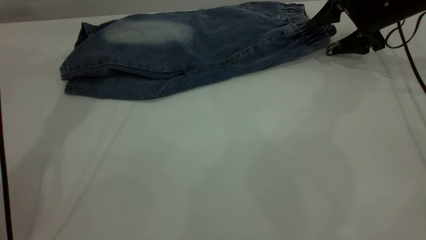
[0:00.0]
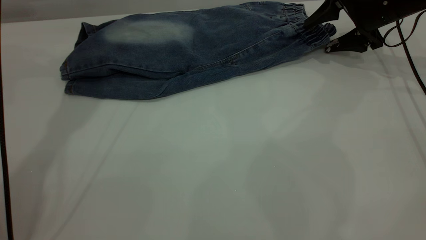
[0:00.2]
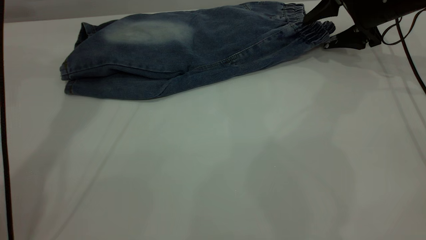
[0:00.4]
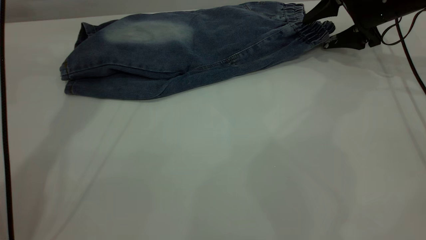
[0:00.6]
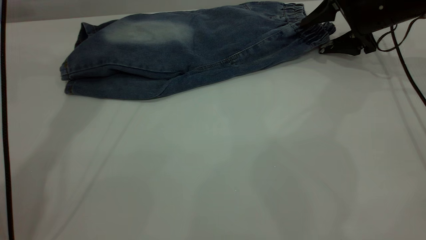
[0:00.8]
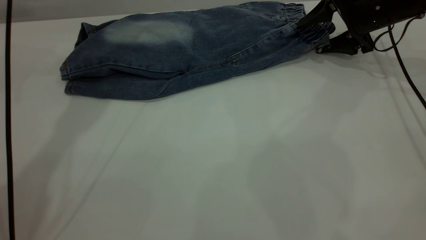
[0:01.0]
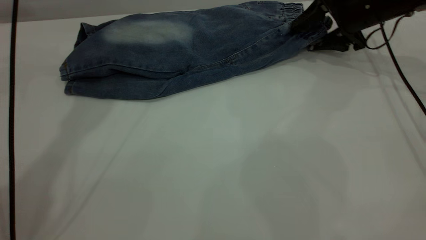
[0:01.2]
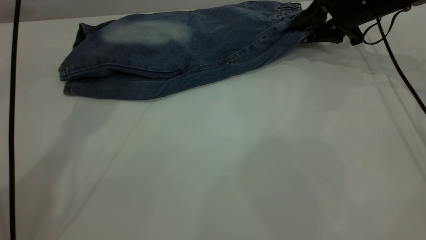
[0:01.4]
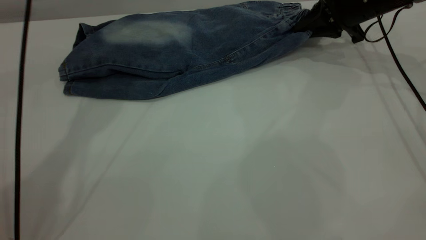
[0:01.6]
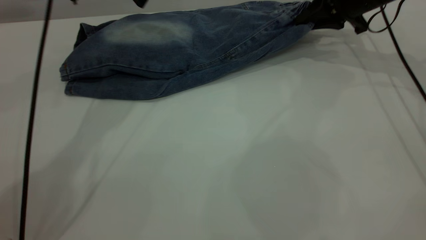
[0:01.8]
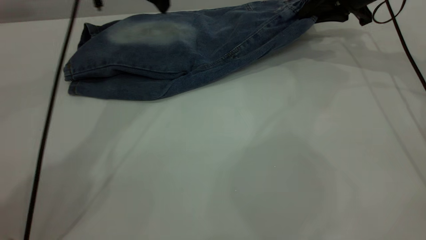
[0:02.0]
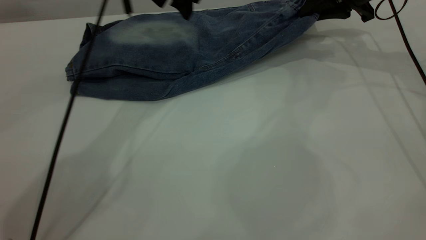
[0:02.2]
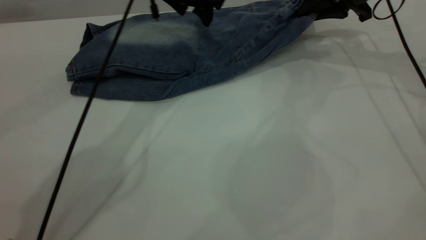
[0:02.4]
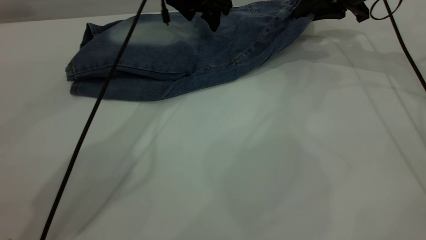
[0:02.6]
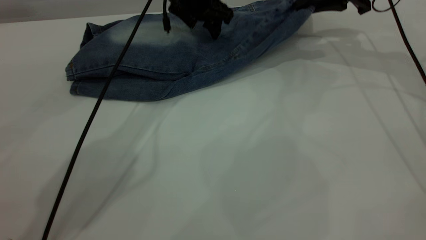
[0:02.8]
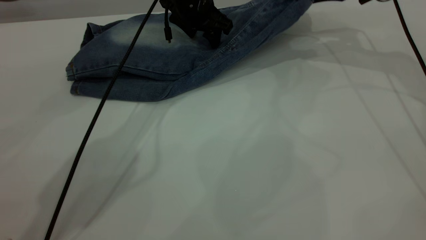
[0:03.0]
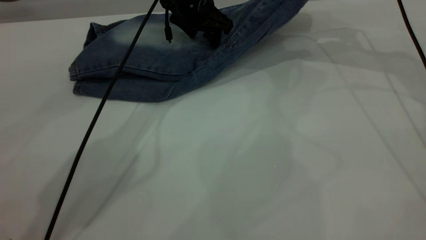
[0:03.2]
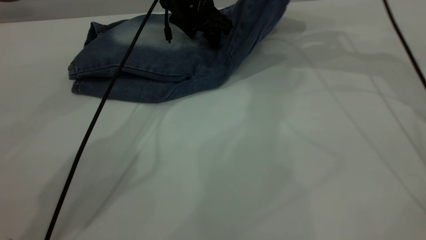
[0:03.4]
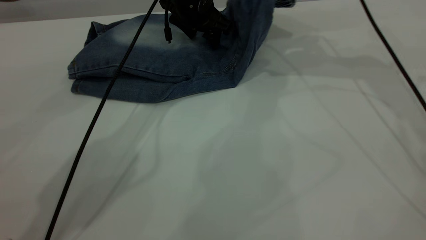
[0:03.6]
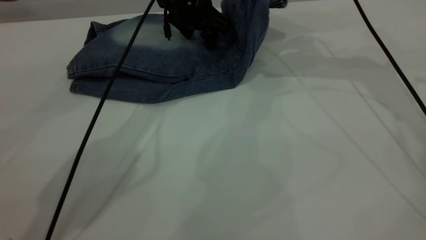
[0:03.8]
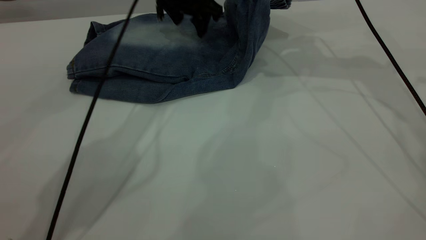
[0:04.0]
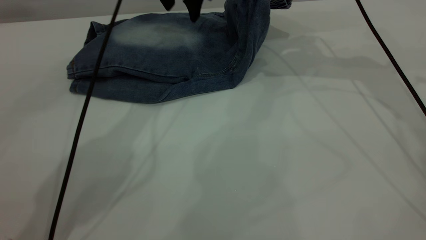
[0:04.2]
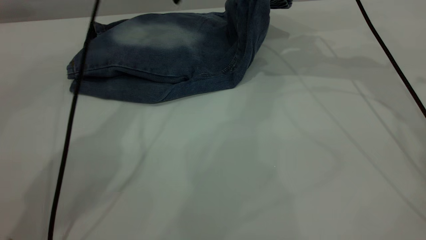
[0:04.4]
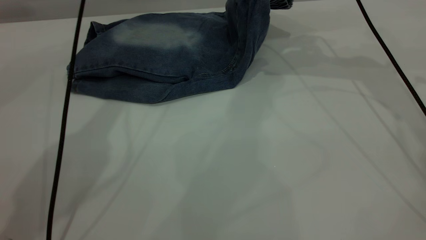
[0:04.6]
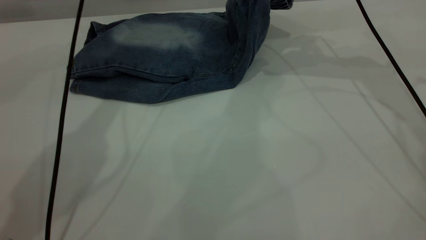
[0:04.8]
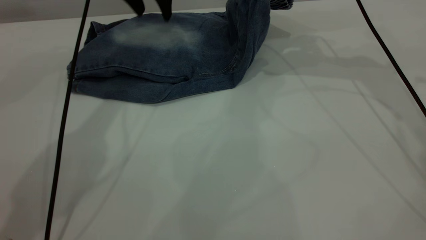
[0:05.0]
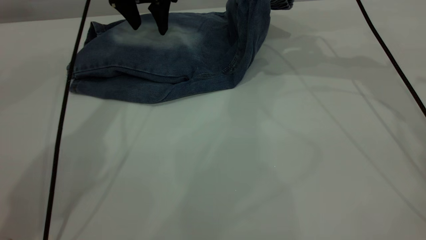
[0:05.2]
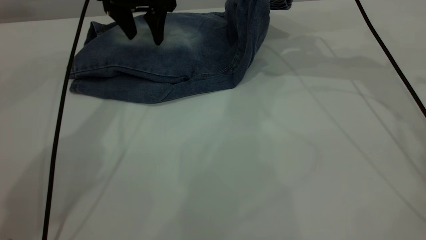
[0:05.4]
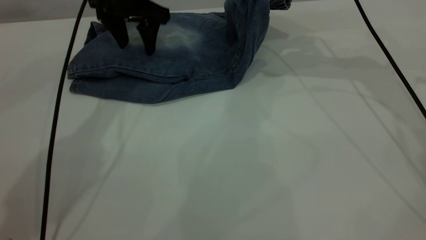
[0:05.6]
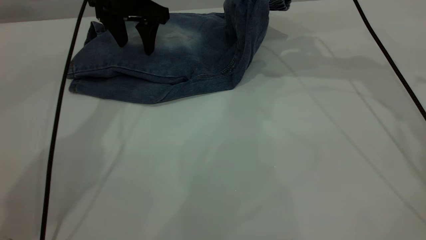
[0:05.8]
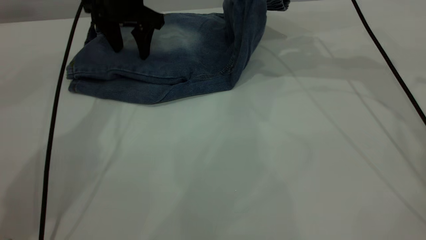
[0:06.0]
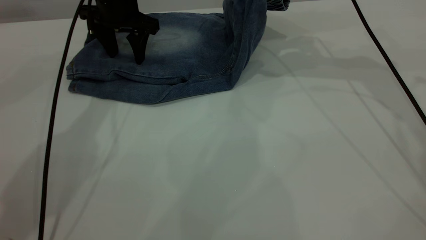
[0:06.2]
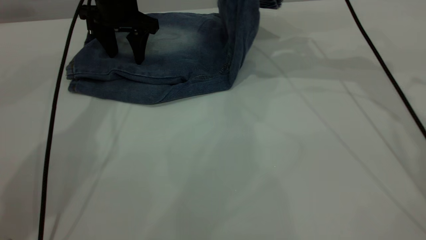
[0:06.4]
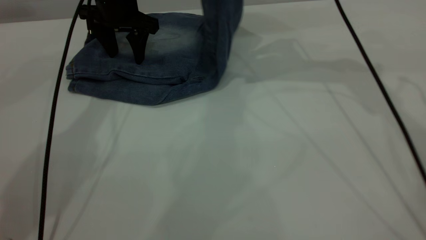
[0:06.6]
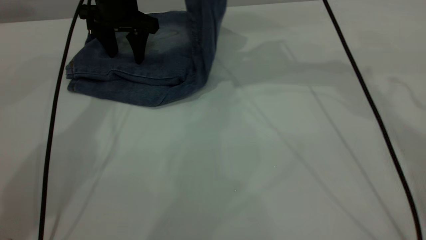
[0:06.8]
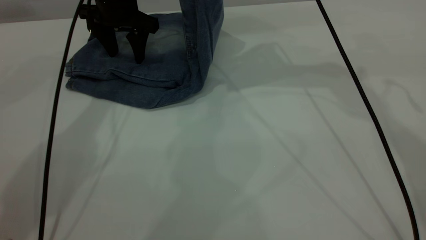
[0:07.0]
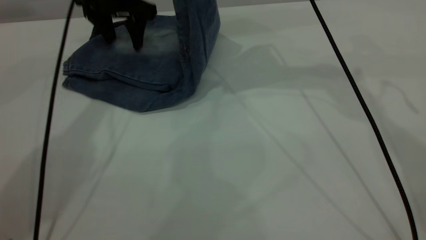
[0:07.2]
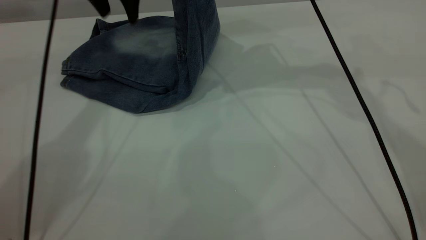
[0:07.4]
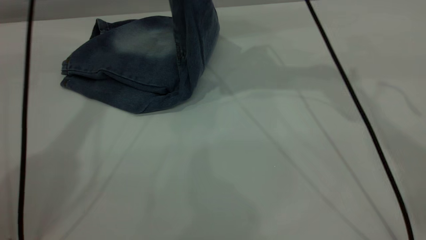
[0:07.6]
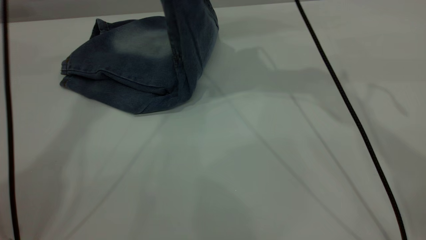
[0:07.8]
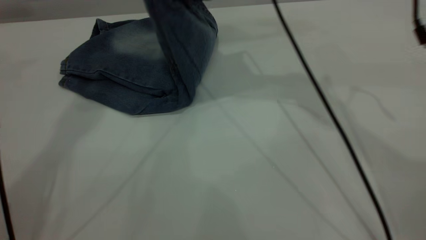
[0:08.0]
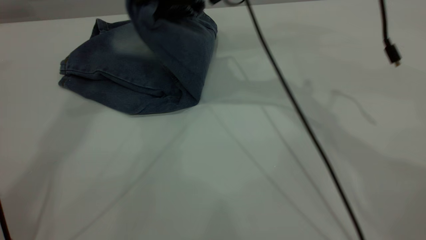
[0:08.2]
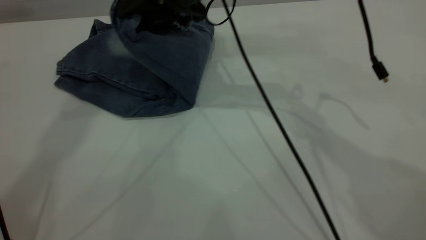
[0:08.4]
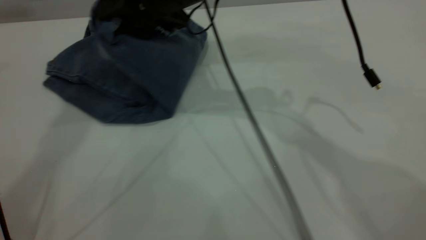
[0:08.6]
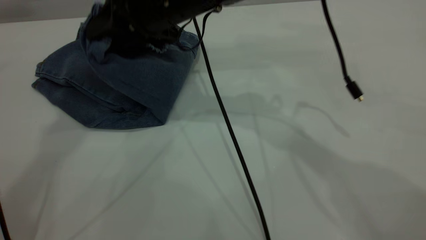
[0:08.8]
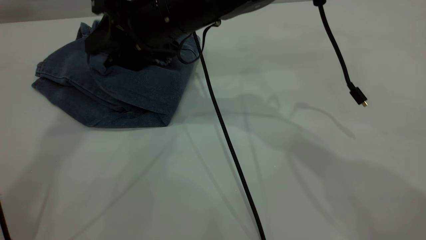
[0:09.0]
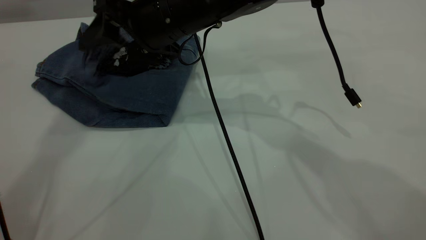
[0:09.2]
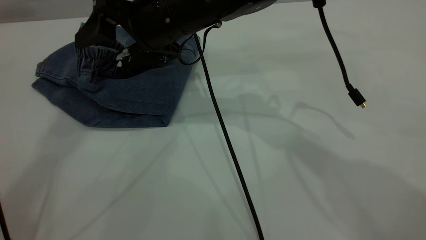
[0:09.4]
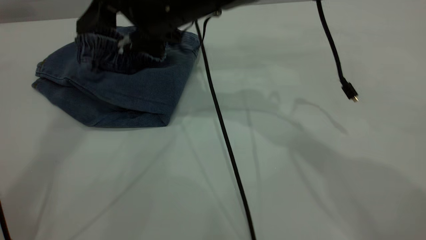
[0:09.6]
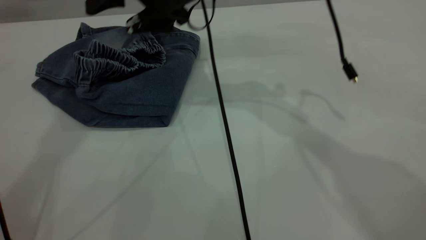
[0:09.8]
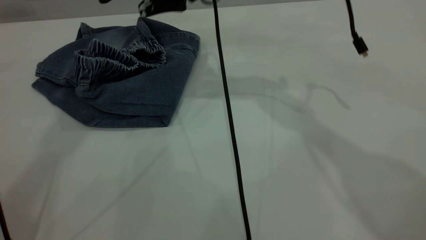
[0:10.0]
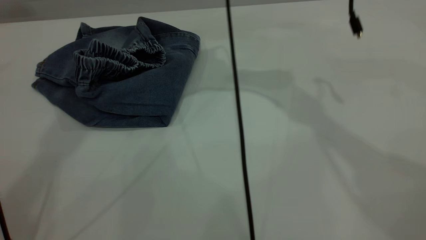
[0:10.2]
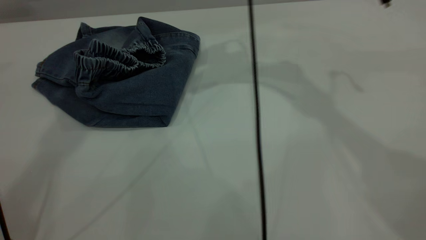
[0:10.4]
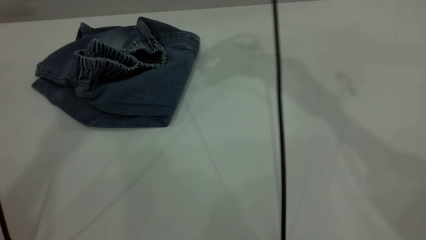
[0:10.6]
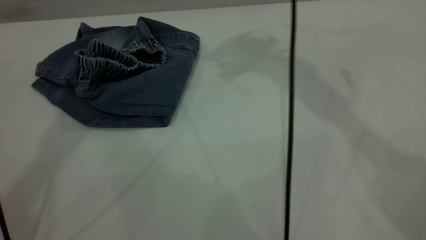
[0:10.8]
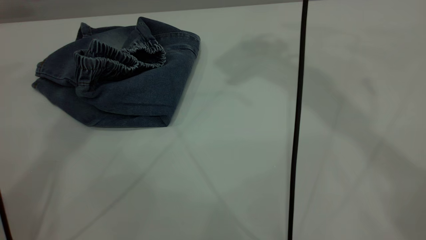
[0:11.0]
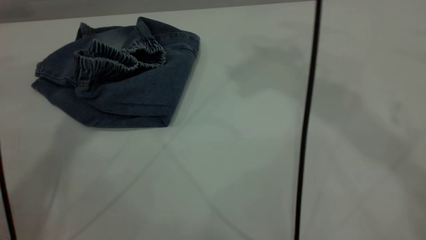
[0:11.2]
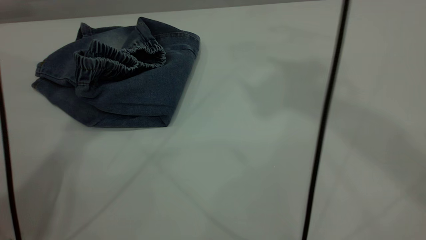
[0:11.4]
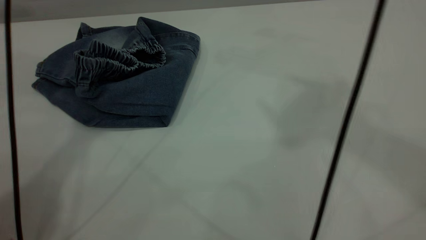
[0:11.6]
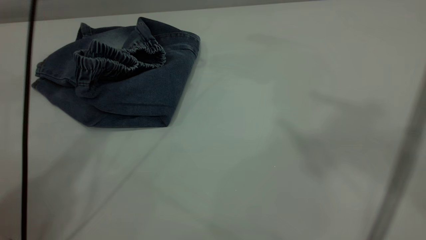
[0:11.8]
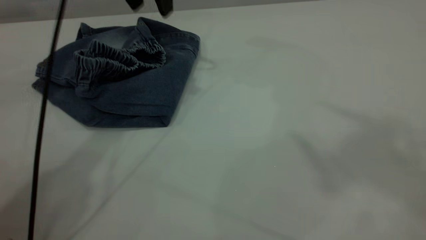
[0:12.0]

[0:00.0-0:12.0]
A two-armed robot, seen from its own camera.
Step, 0.0 to 10.0 s: Fold your pants from right to left.
0.0 to 1.6 s: The left gripper heads to the right, covering approximately 5 cm; the right gripper closes.
1.6 to 3.0 s: The left gripper goes some 15 cm to the right and downward. Meanwhile the right gripper is displaced upward by approximately 5 cm.
3.0 to 4.4 s: The right gripper shifts roughly 5 cm to the left. Meanwhile the left gripper heads upward and to the left, covering some 10 cm.
4.4 to 6.0 s: The left gripper travels downward and to the left by roughly 10 cm.
6.0 to 7.6 s: The right gripper moves to the left and upward, some 10 cm. The left gripper shifts roughly 15 cm upward.
7.6 to 9.0 s: The right gripper is displaced to the left and downward by about 15 cm, and opens its fingers. The left gripper is displaced upward and backward by approximately 20 cm.
9.0 to 10.4 s: The right gripper shifts roughly 15 cm upward, to the right and forward, and opens up.
10.4 to 12.0 s: The right gripper travels upward, backward and to the right by approximately 40 cm. The left gripper heads downward, covering approximately 20 cm.

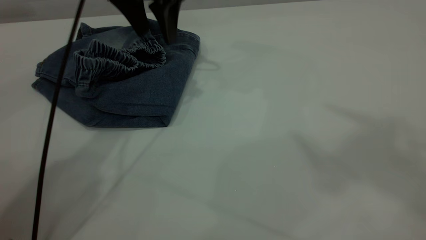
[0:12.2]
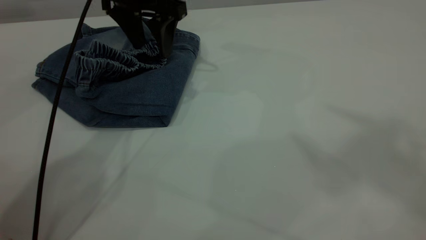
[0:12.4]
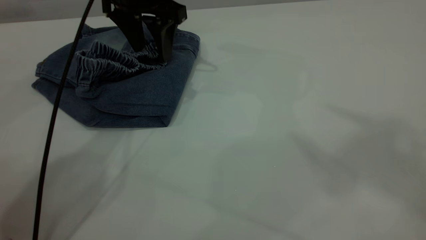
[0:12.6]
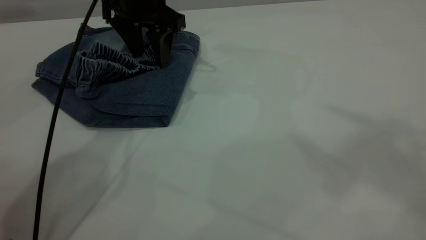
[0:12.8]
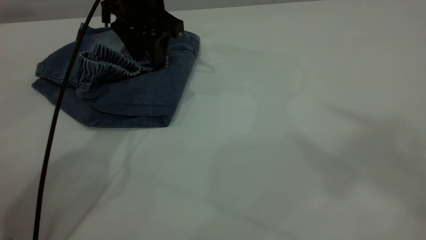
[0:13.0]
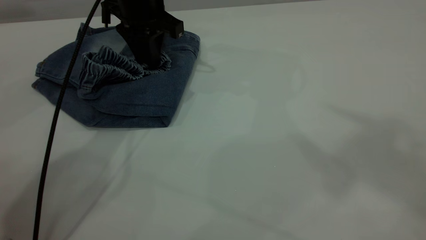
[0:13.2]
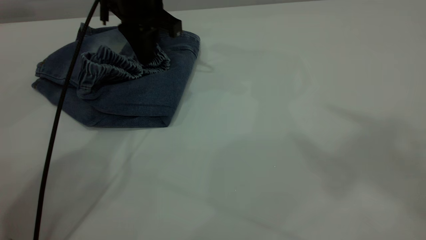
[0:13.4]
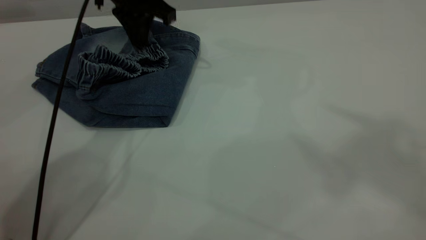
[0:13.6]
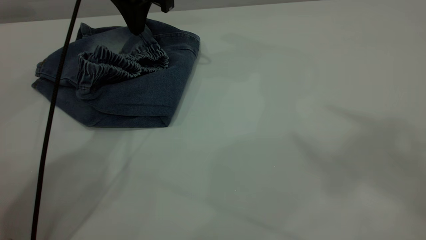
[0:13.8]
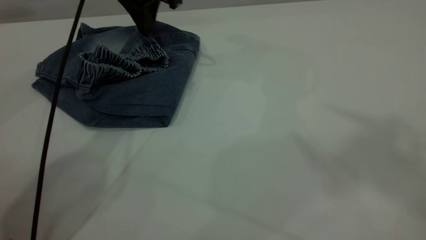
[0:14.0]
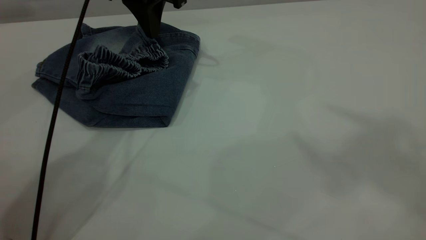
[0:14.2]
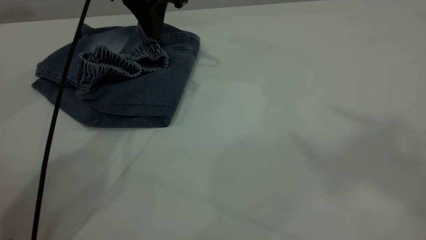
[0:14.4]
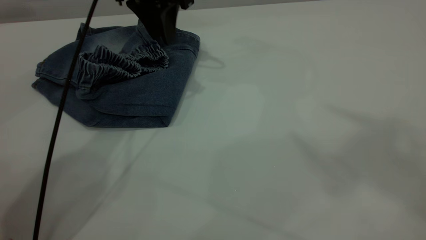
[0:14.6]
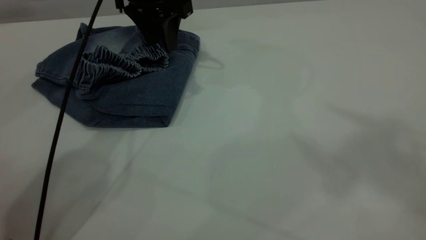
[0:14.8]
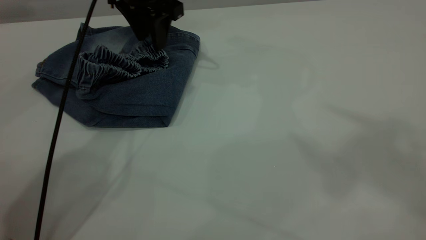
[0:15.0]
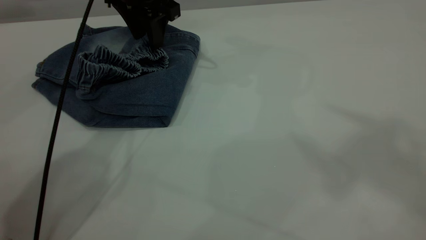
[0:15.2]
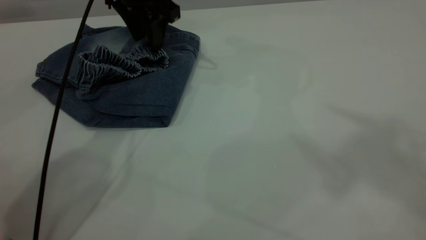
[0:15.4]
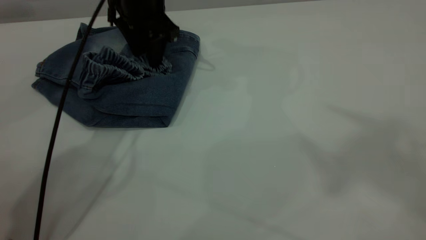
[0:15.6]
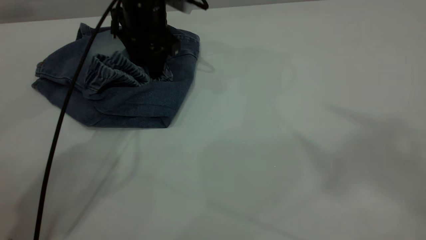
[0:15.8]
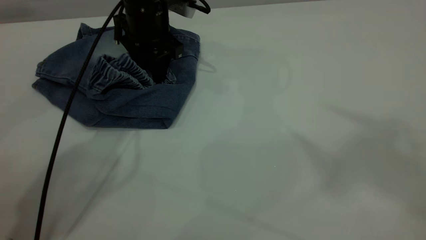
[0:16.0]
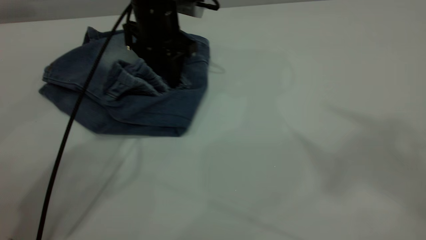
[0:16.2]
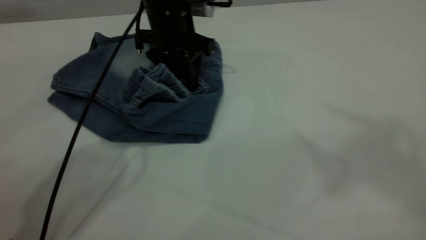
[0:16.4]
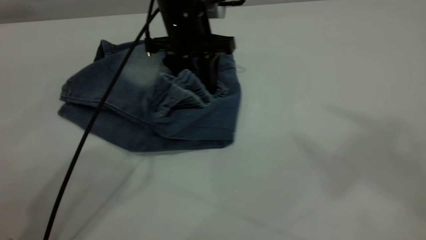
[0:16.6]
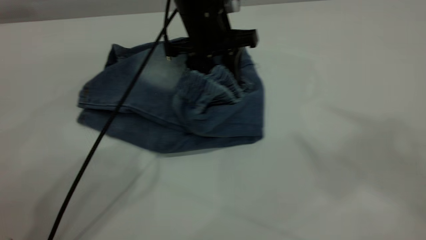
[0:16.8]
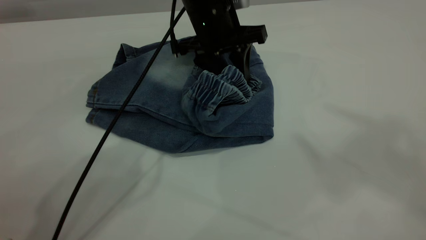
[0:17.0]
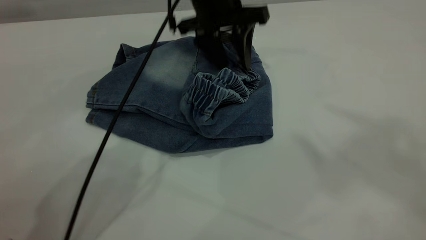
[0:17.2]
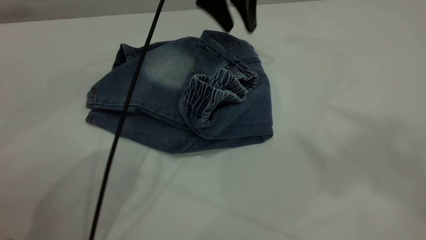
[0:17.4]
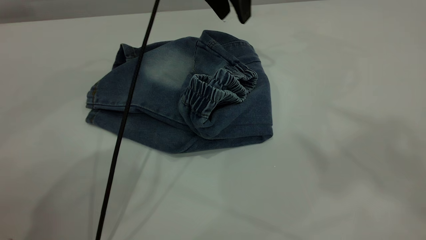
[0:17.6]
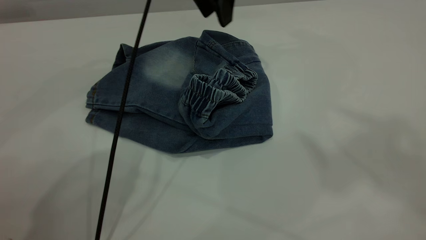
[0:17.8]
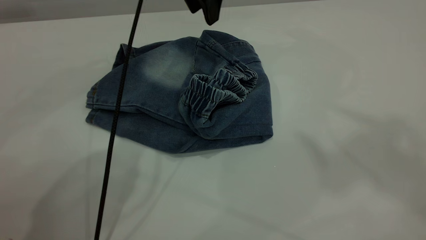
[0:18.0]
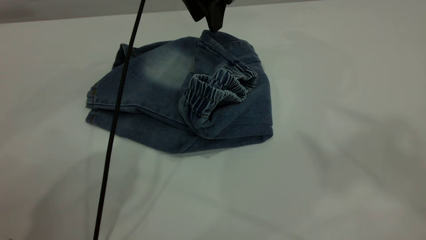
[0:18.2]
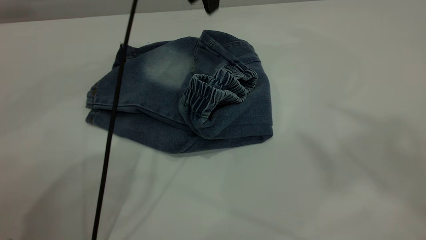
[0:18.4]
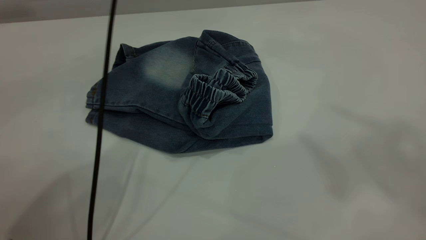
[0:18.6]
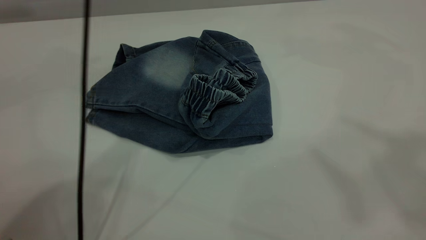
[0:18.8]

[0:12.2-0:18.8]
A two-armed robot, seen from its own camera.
12.2 to 13.8 s: The left gripper closes its fingers.
13.8 to 15.4 s: The left gripper opens up.
15.4 to 17.2 s: The left gripper travels to the right by about 10 cm.
17.2 to 18.8 s: The left gripper goes about 20 cm upward.
